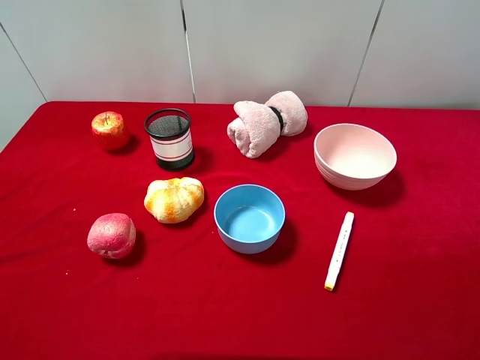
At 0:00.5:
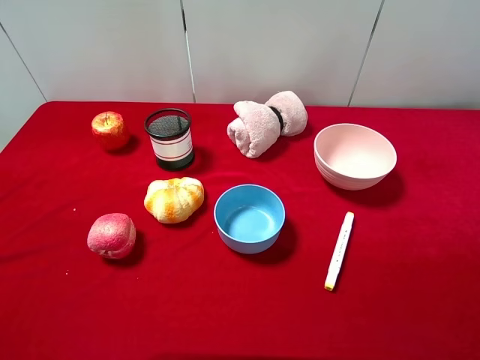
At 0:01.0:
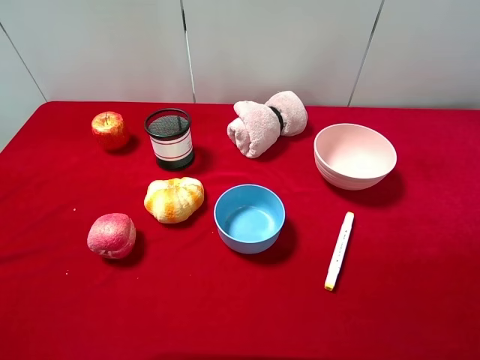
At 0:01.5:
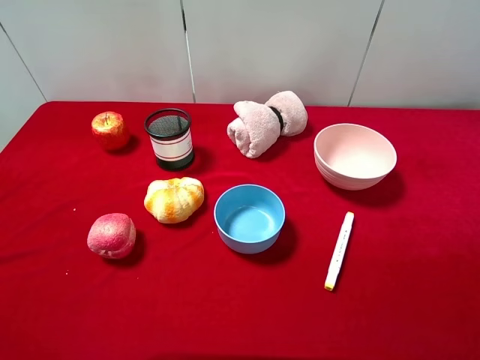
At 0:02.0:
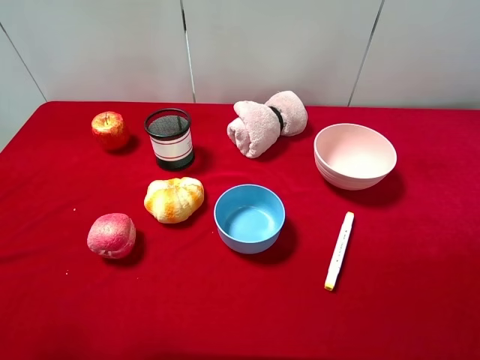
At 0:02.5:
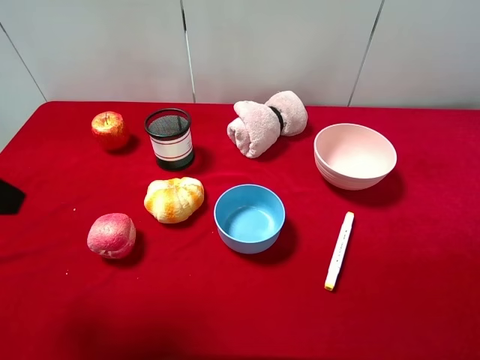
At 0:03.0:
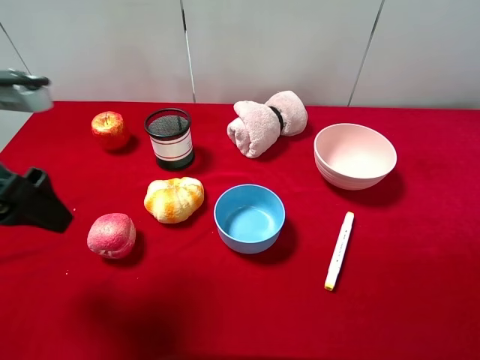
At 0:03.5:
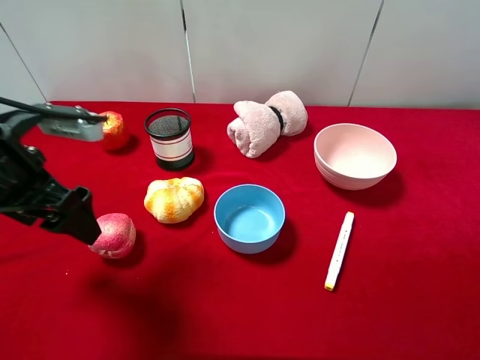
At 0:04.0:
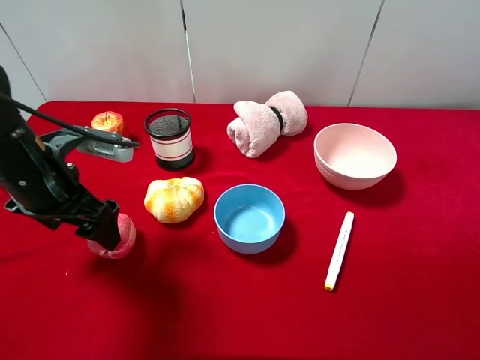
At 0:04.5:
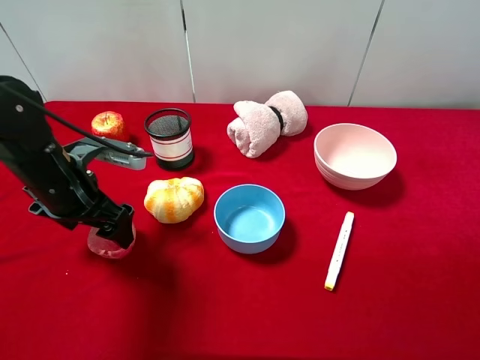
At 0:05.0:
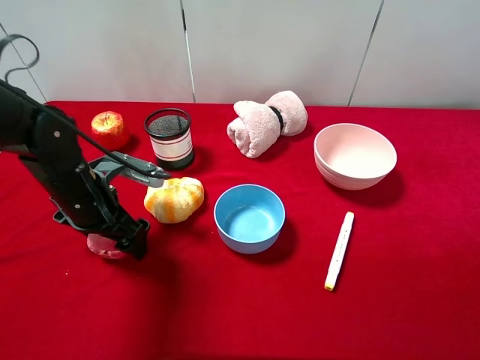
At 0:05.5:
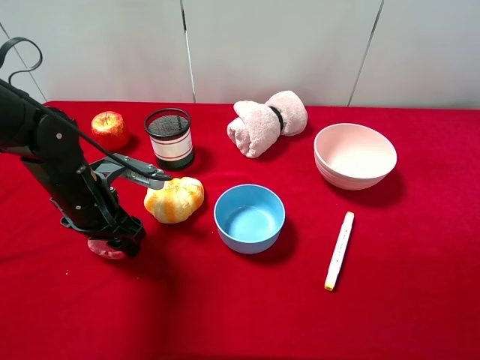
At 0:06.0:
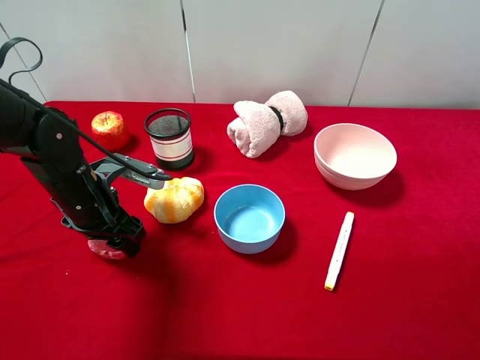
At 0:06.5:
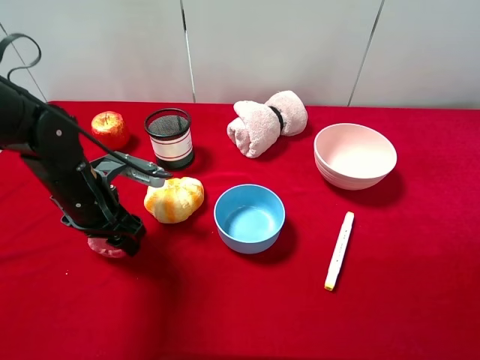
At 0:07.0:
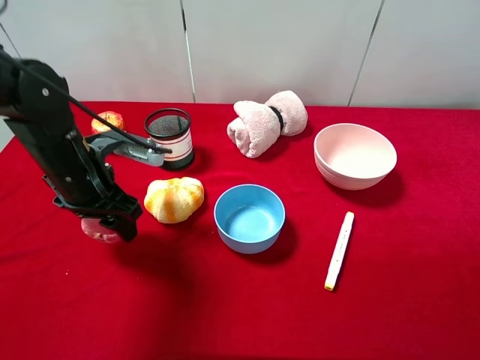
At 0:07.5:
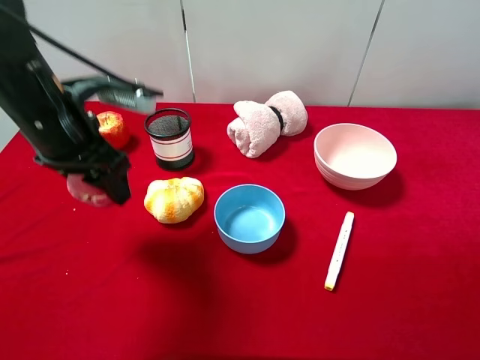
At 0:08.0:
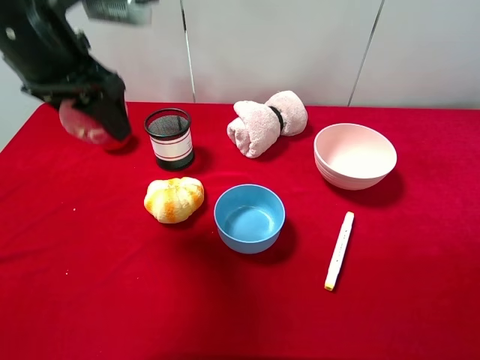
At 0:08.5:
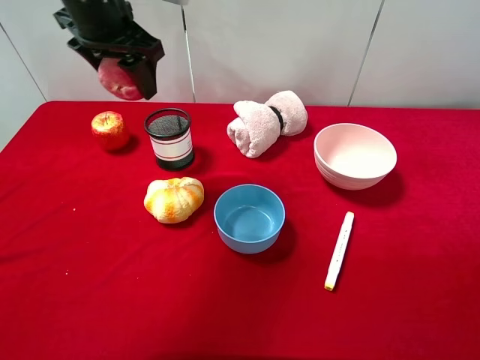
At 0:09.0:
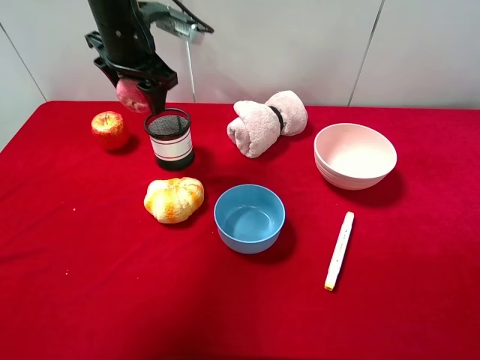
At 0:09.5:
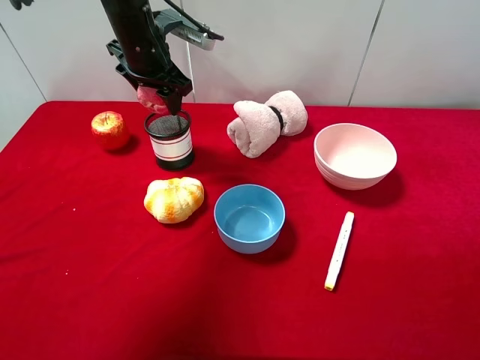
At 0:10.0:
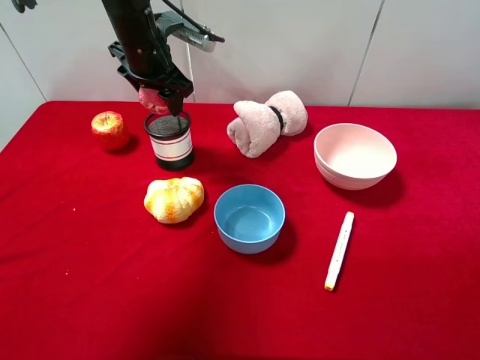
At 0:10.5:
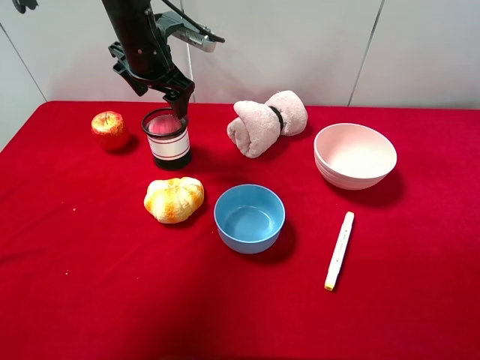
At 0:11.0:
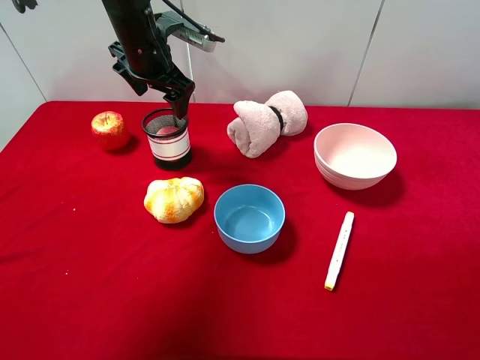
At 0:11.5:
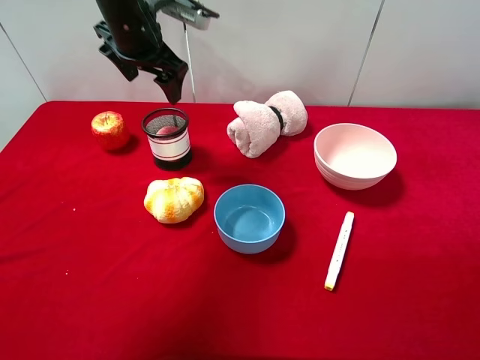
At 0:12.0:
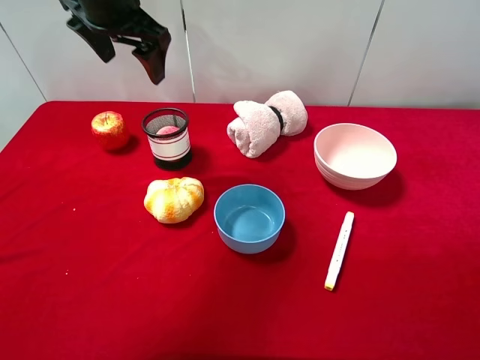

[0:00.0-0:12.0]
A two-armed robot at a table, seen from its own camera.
Task of the whole recording: pick up an item with a gripper and place it in a random container on the desktop.
0:02.0 to 0:04.0: The left gripper travels downward, forward and to the right by about 20 cm.
0:04.0 to 0:06.0: The left gripper moves downward, some 5 cm, and closes up.
0:06.0 to 0:08.0: The left gripper travels upward by approximately 20 cm.
0:08.0 to 0:10.0: The left gripper goes some 20 cm forward and downward.
0:10.0 to 0:12.0: The left gripper is displaced upward by roughly 10 cm, and opens.

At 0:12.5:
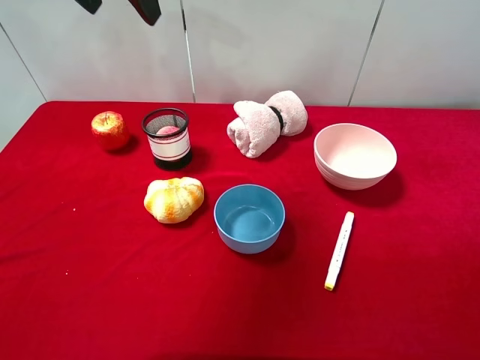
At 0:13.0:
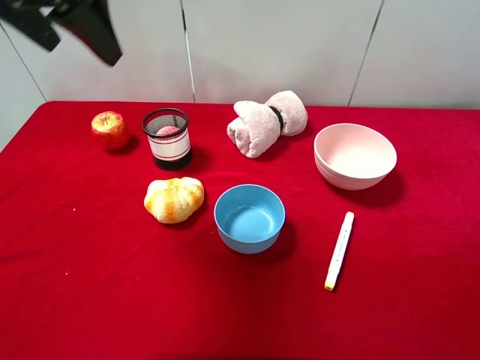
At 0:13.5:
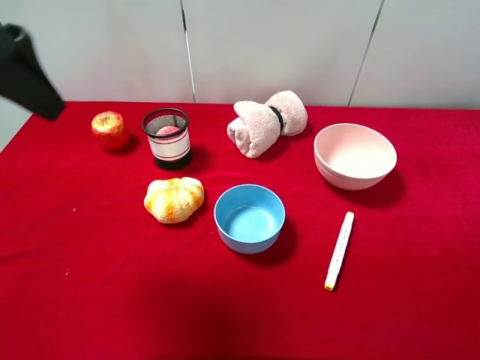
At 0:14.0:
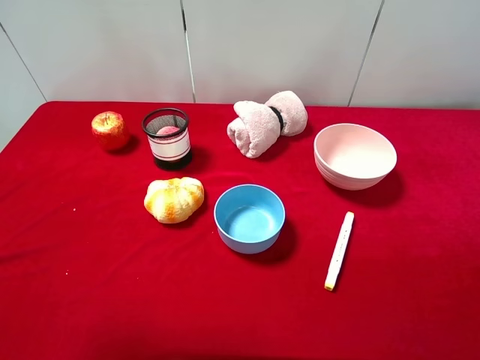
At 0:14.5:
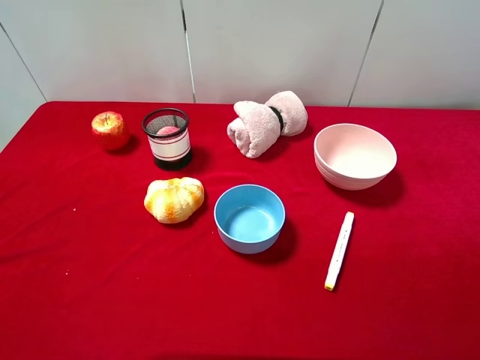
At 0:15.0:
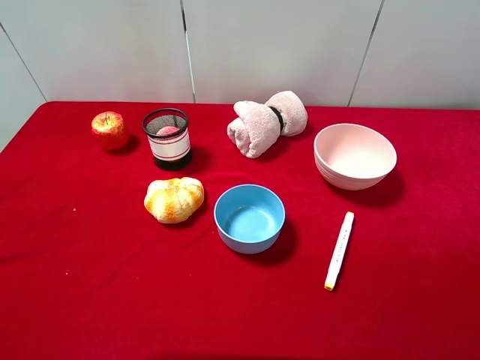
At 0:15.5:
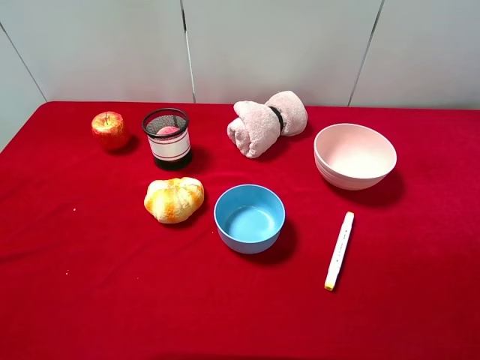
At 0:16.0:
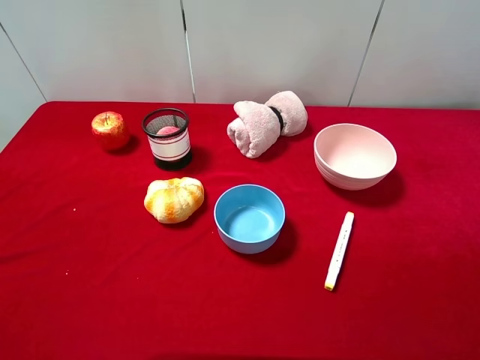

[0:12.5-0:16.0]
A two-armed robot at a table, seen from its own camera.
Task of the whole recording: pick up an item with a gripper and place it in a random container on the desktop.
0:12.5 to 0:14.5: The left gripper moves backward and to the left, approximately 35 cm, and opens.

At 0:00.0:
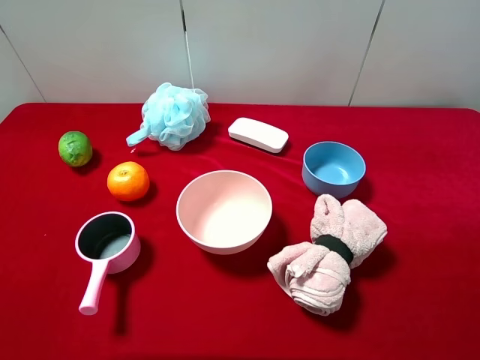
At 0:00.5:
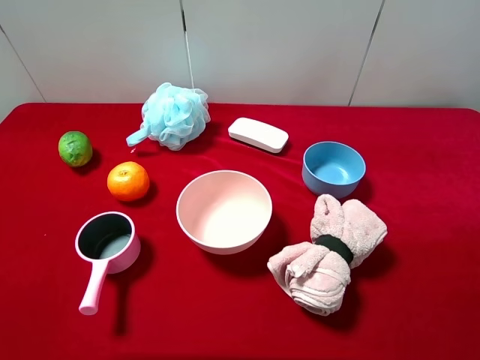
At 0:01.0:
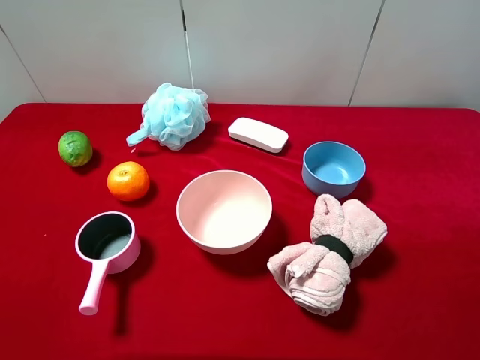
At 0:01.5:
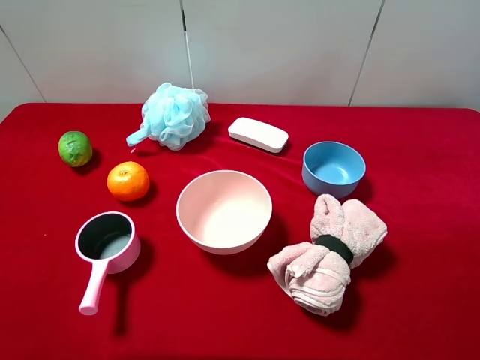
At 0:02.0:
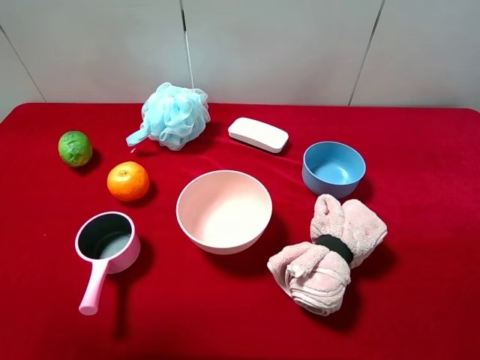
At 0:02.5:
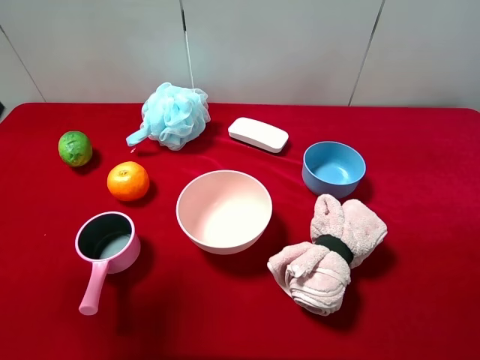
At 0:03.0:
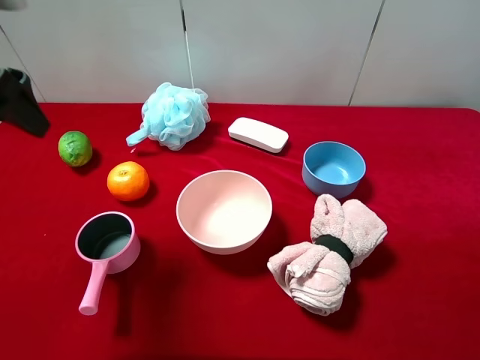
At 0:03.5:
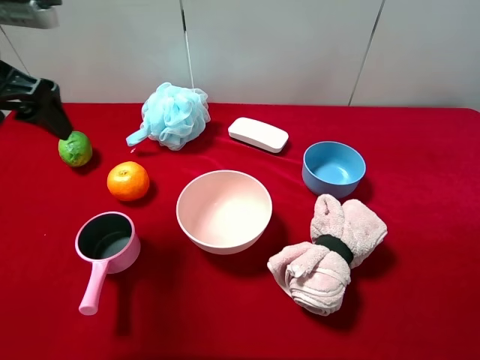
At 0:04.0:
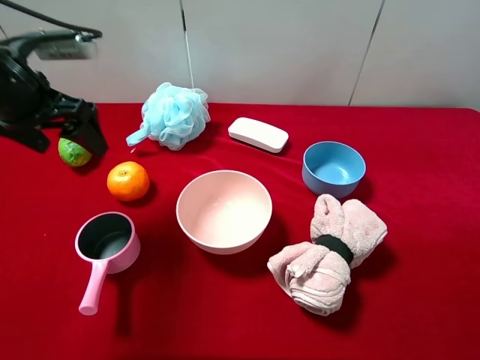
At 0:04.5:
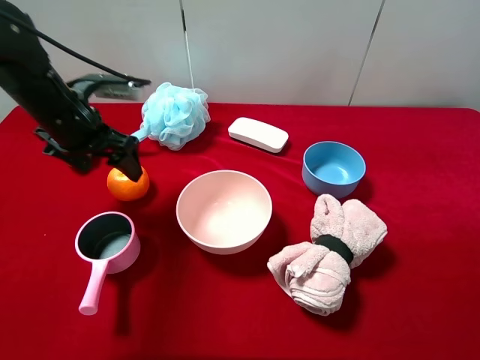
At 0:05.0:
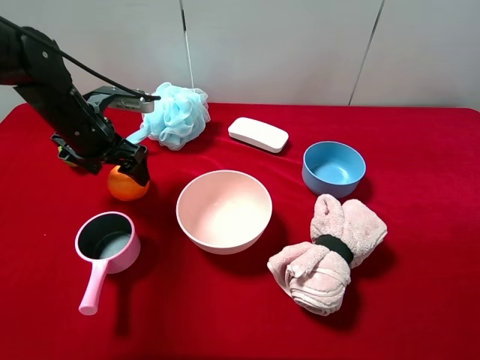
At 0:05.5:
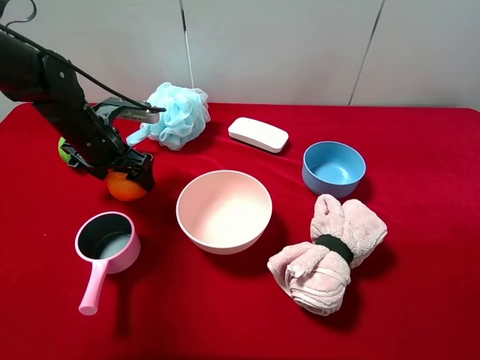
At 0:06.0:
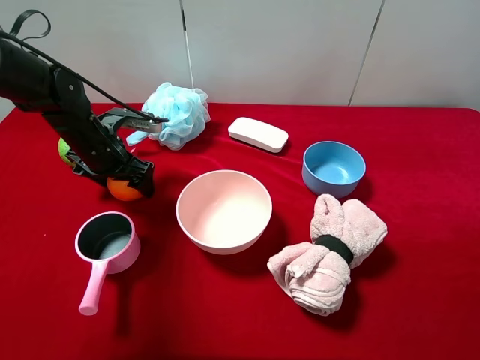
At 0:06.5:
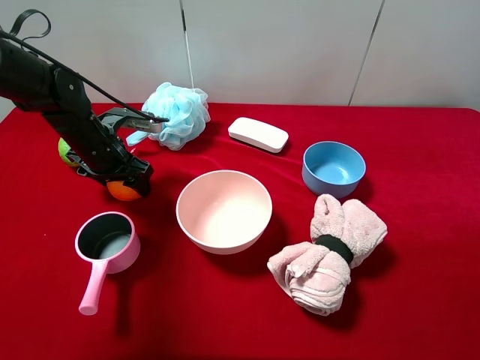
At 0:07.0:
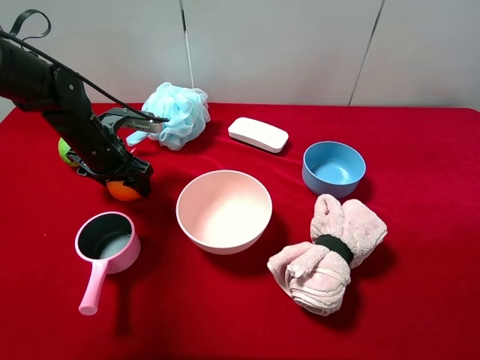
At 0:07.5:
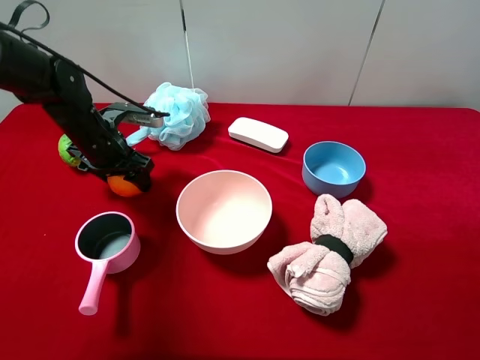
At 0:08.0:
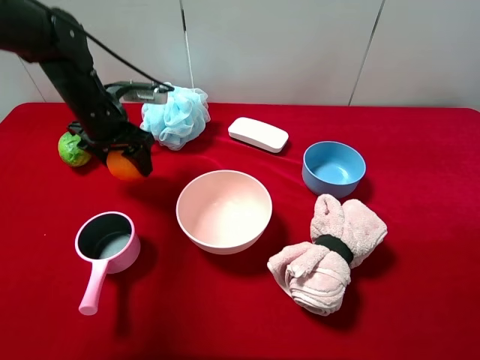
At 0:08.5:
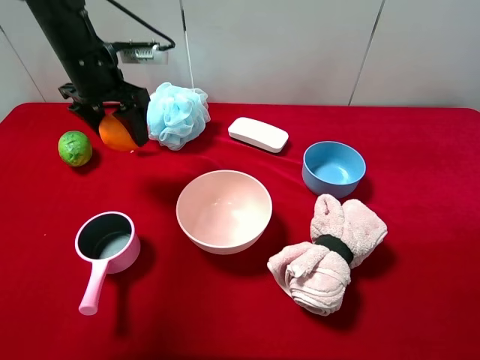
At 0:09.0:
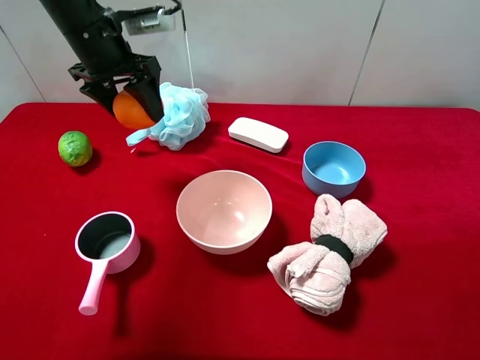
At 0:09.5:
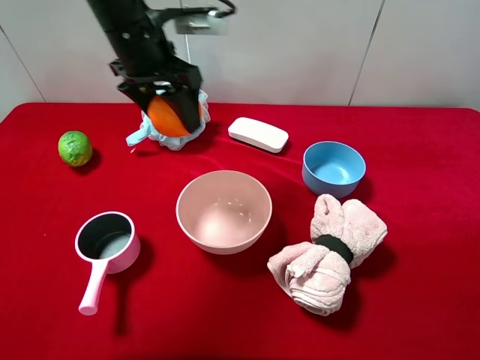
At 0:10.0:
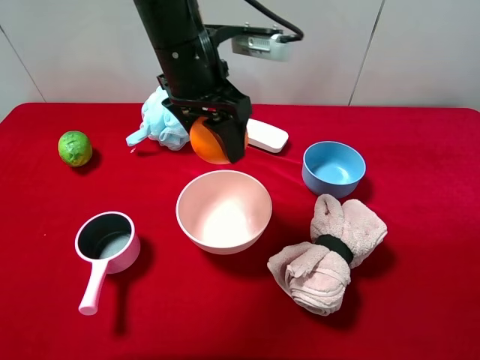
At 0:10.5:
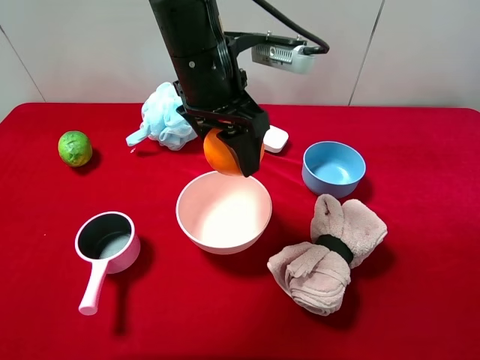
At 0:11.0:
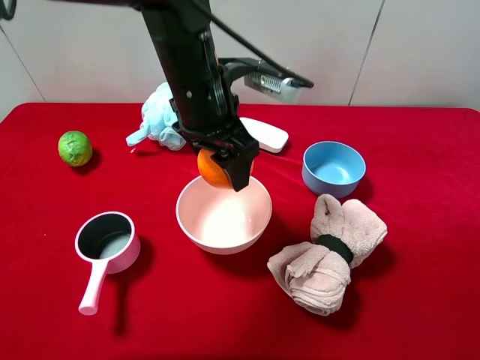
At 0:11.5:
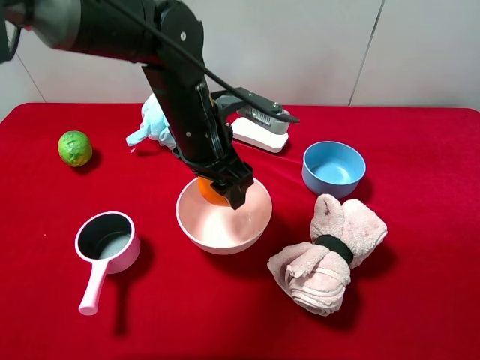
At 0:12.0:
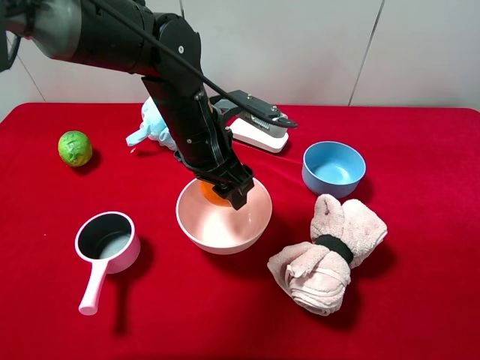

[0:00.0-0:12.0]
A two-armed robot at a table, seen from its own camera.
Task of the whole recording: pick up an item with a gripper and place it in a random container on the desktop.
0:02.0 to 0:04.0: The left gripper heads forward and downward, covering some 20 cm.
0:04.0 to 0:06.0: The left gripper goes roughly 15 cm downward, and closes up.
0:06.0 to 0:08.0: The left gripper travels upward by some 5 cm, and closes.
0:08.0 to 0:10.0: The left gripper travels to the right and upward by some 20 cm.
0:10.0 to 0:12.0: The left gripper shifts some 10 cm downward.
